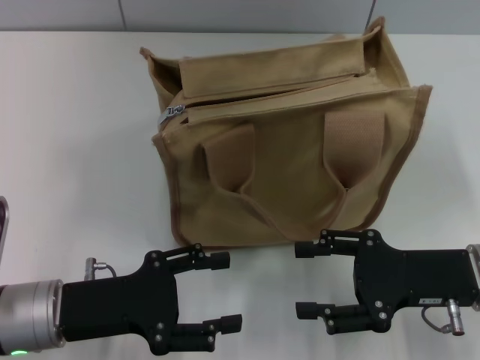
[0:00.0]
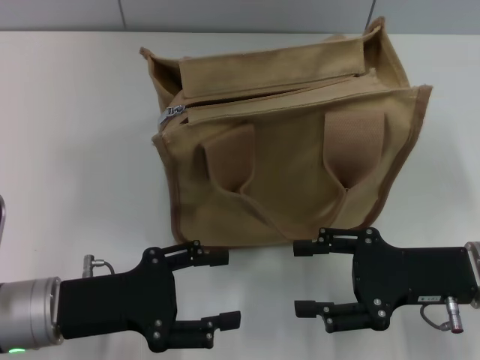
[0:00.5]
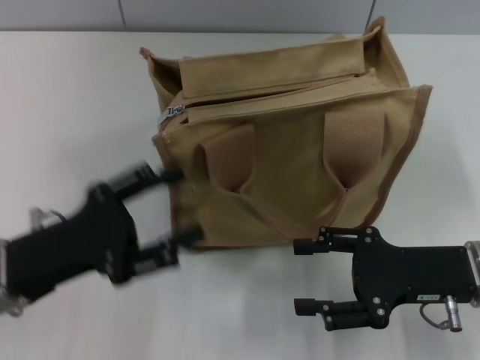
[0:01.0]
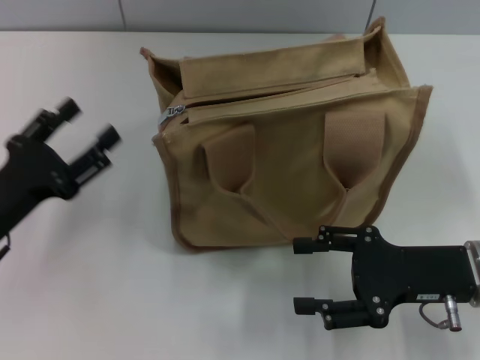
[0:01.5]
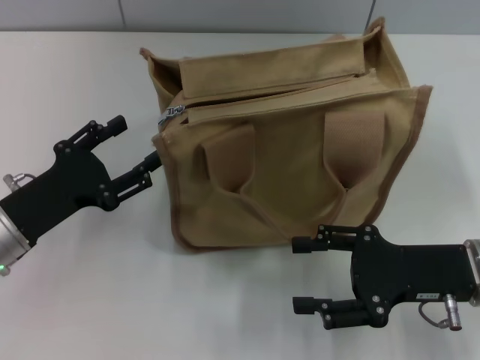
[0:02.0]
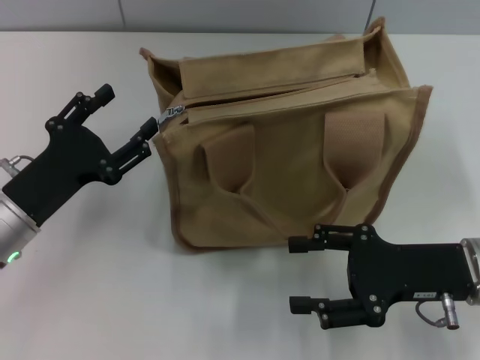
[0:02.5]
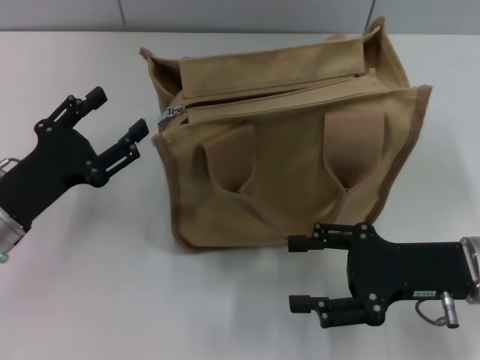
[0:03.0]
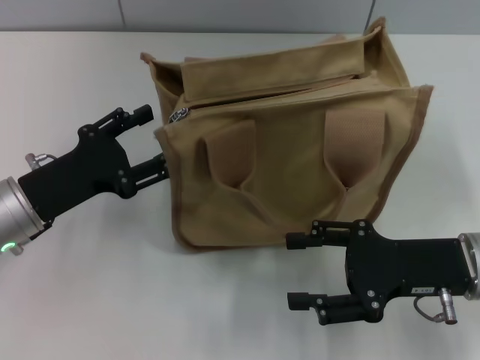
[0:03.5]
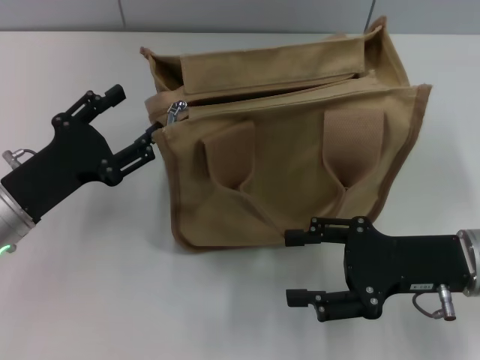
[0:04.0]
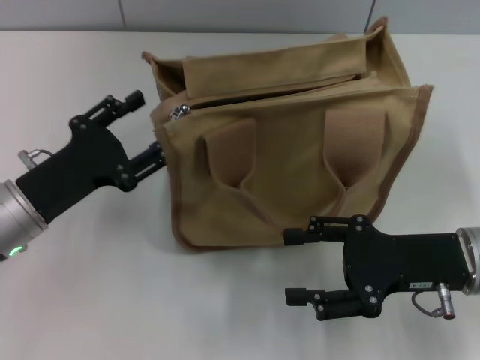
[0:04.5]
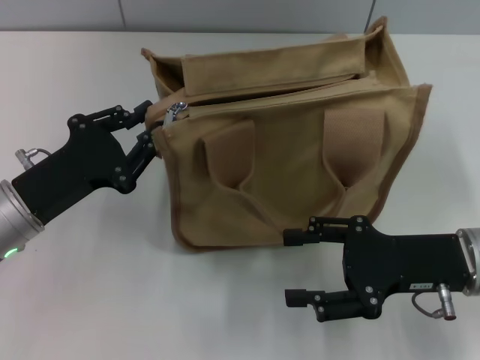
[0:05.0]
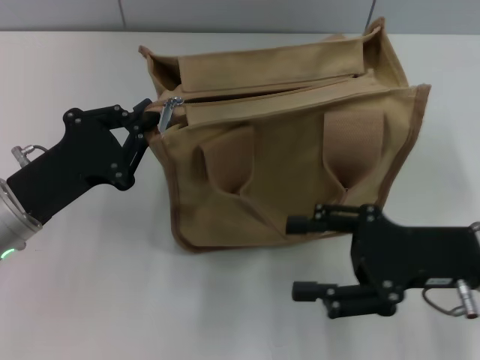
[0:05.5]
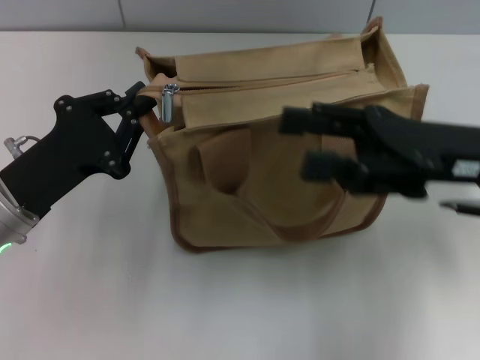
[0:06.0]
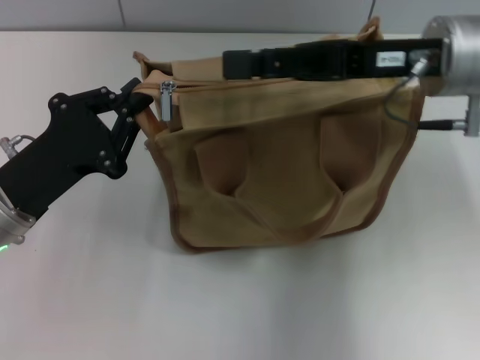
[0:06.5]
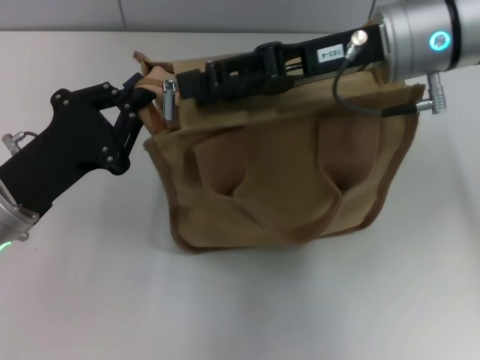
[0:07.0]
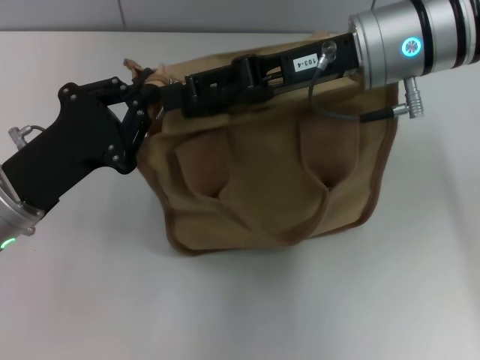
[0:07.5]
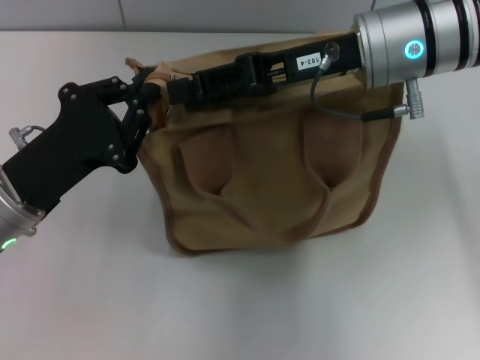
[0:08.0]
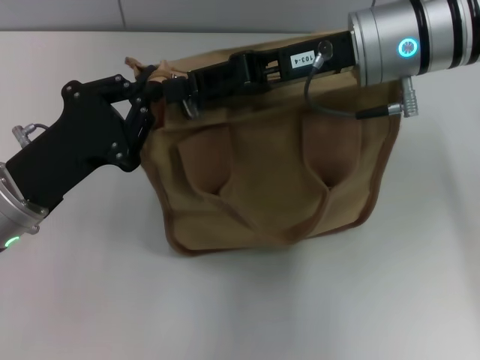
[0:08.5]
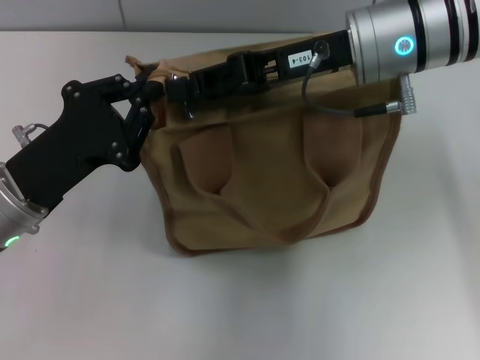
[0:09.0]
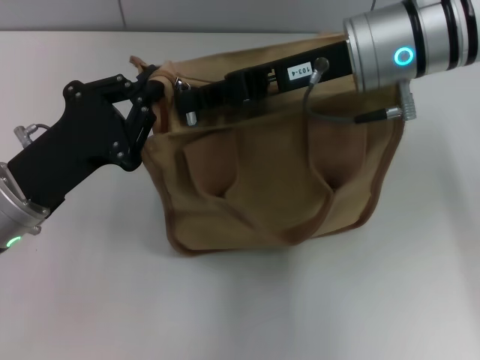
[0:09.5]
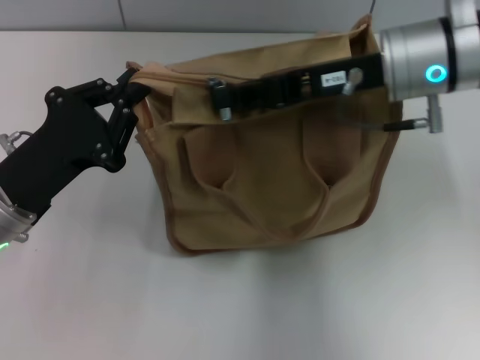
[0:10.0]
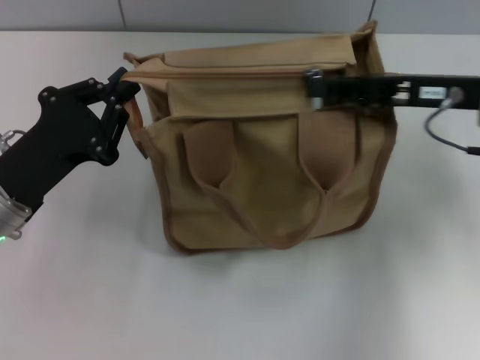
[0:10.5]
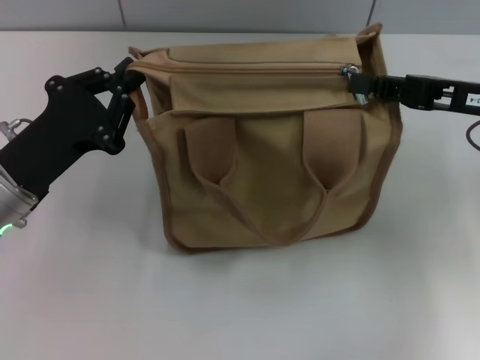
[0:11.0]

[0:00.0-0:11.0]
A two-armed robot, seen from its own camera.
0:00.0 to 0:02.0: The left gripper moves roughly 5 cm.
0:02.0 to 0:03.5: There are only small adjustments of the grippers.
0:03.5 to 0:05.5: The left gripper closes up.
0:05.5 to 0:07.5: The right gripper shifts approximately 20 cm forward, upward and to the left.
0:07.5 to 0:09.0: The right gripper closes up.
0:09.0 to 0:11.0: The right gripper heads to the right, covering roughly 15 cm, and closes its fingers.

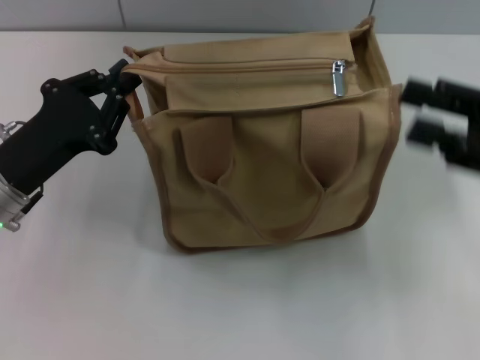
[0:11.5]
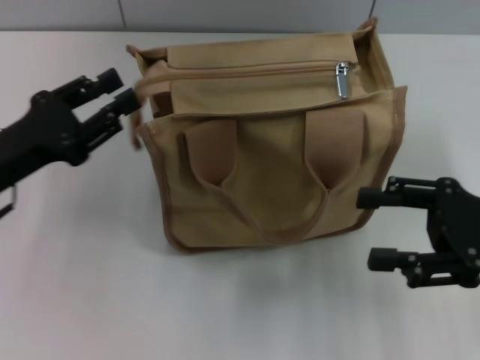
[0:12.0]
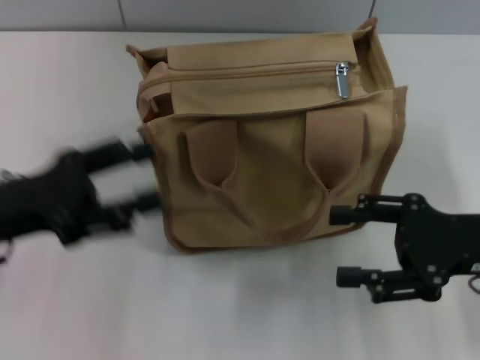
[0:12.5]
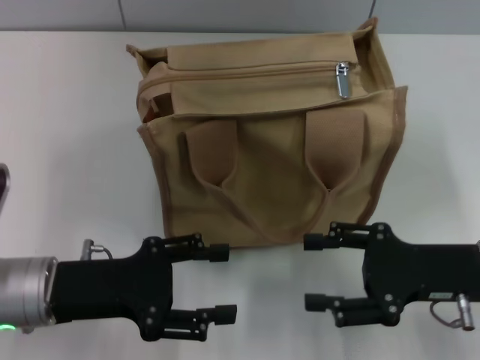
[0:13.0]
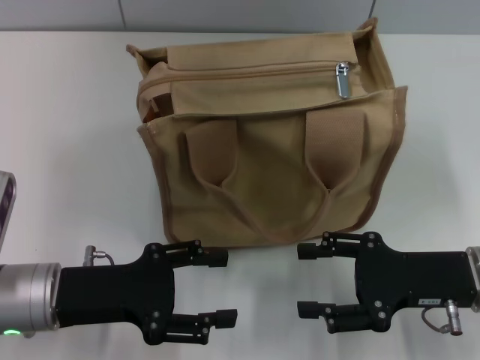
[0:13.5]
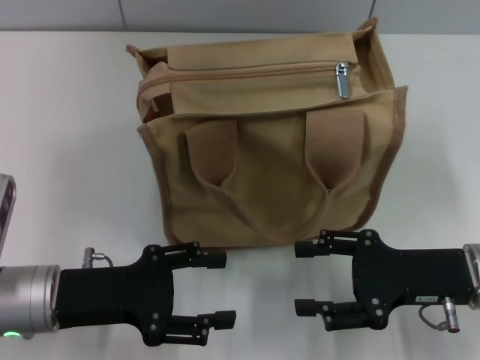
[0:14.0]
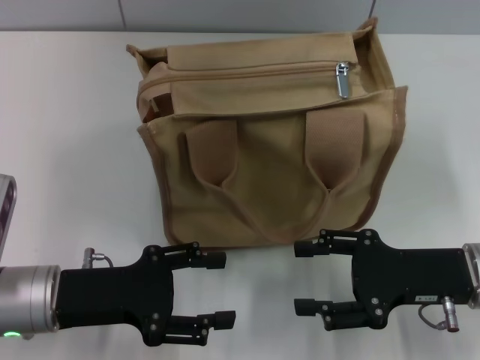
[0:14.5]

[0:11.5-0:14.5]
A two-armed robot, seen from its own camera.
Step, 0:11.5 to 0:12.0: Grab the zipper with your left hand.
0:11.5 to 0:13.0: The right gripper is displaced downward and to the left by about 10 cm, and opens up. Meanwhile the left gripper moves approximately 5 cm, and opens its fingers.
0:13.0 to 0:14.5: Both grippers stay about where they are.

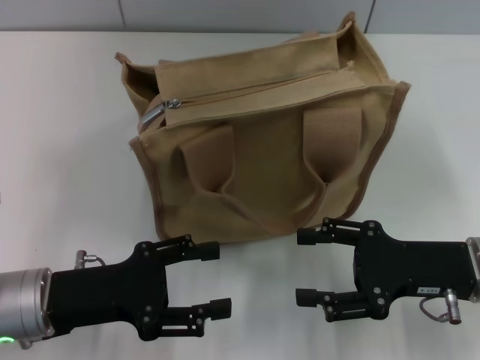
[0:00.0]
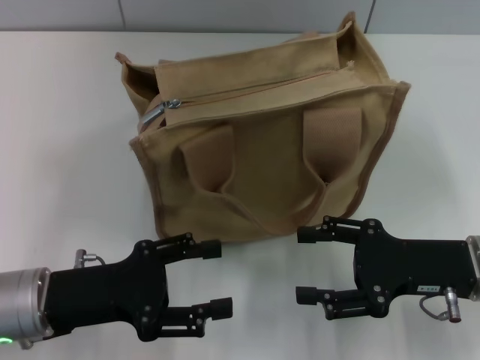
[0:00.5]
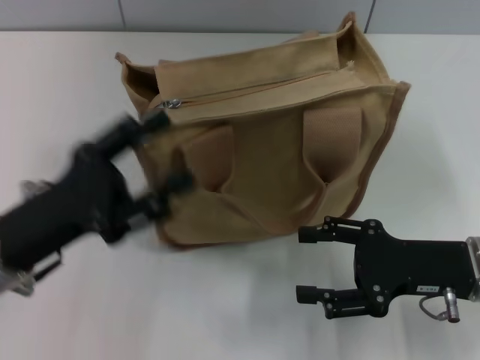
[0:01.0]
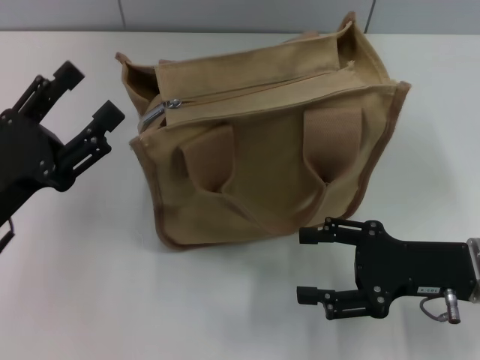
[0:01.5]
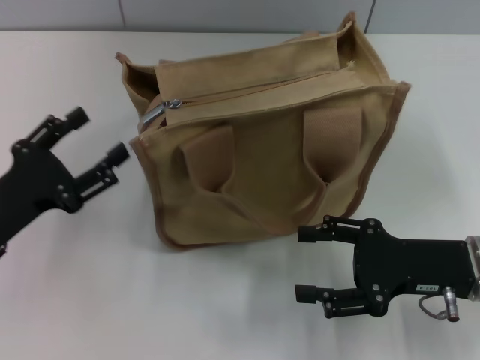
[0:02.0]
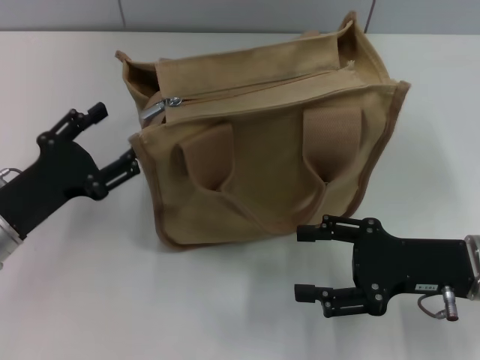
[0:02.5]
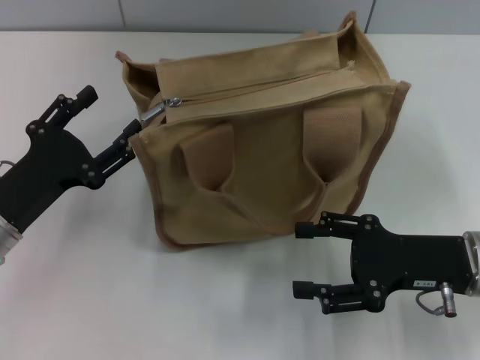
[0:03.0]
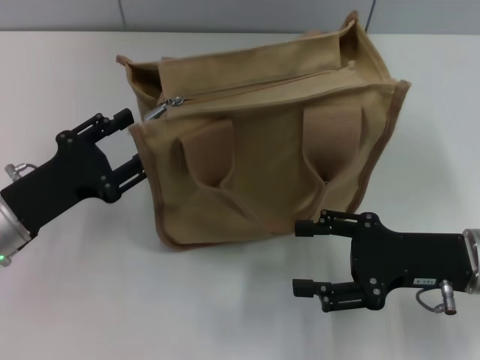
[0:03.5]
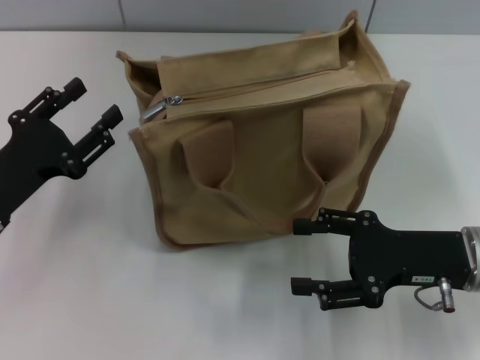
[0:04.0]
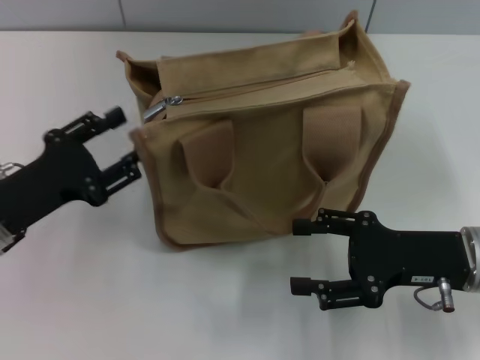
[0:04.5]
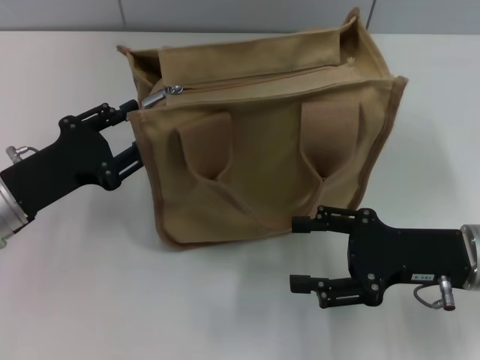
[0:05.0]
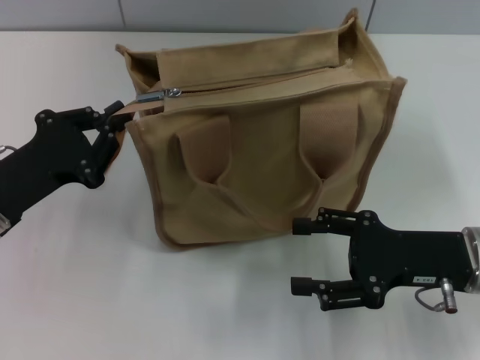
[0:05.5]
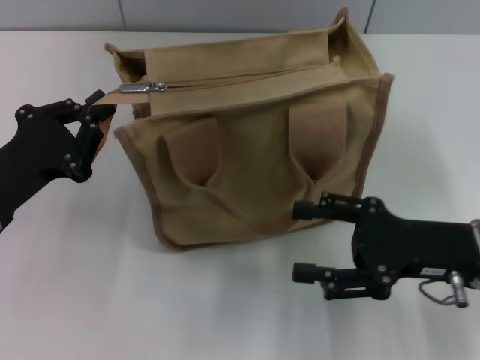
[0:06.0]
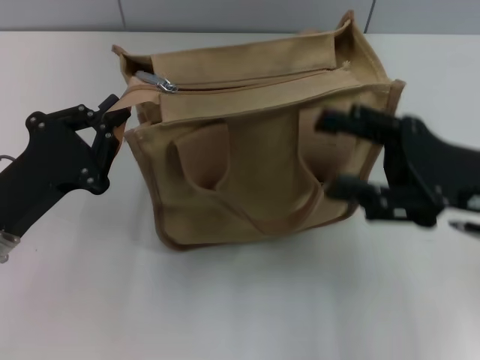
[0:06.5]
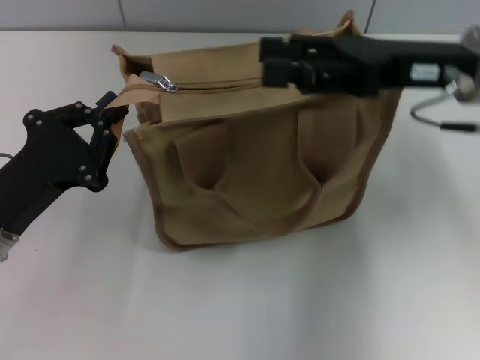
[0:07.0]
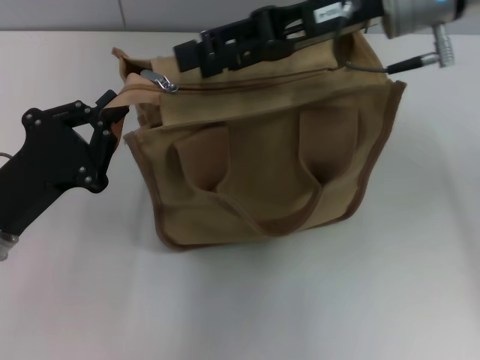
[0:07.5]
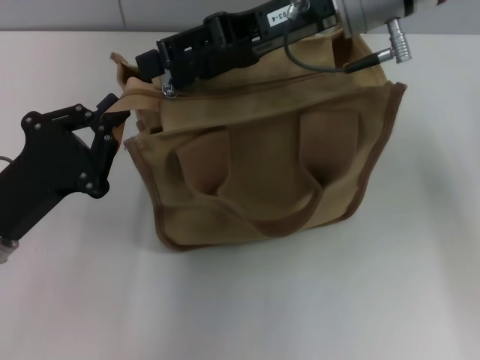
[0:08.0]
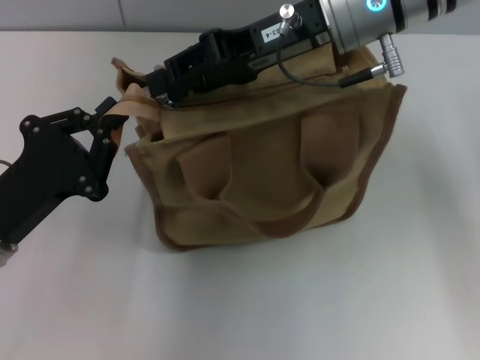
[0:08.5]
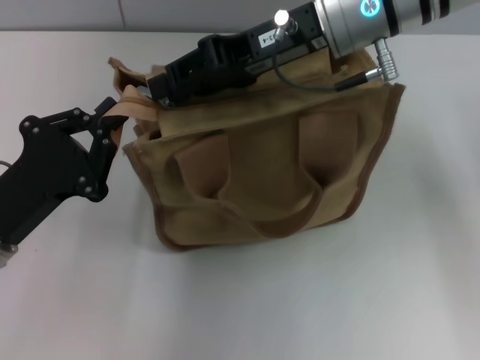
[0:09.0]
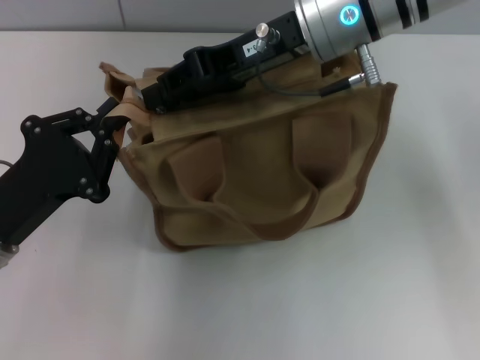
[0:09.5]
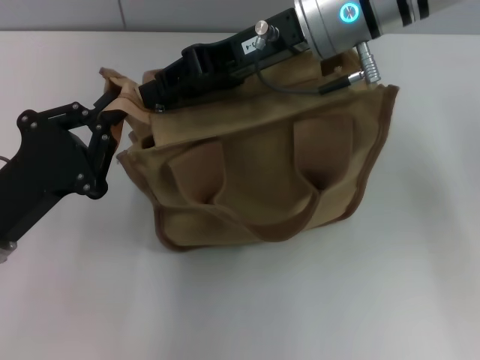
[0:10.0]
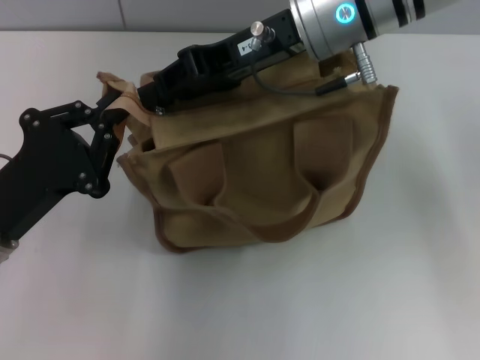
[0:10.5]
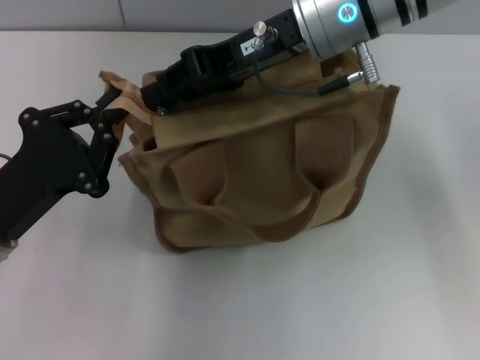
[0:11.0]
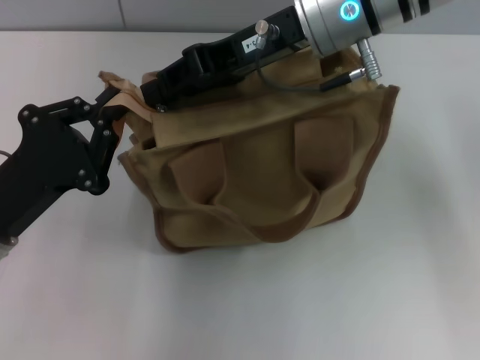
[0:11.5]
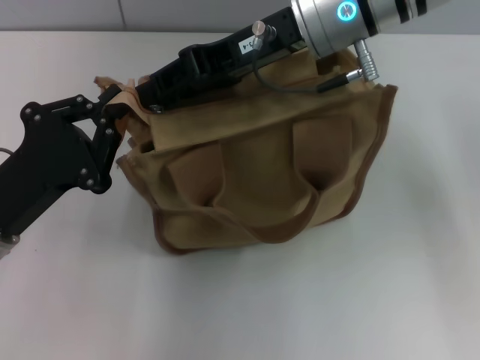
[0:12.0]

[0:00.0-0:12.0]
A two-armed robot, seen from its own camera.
0:00.0 to 0:02.0: The left gripper shifts some 5 cm to the left.
0:02.0 to 0:04.0: The grippers move only a little.
0:04.0 to 0:06.0: The left gripper closes up.
0:06.0 to 0:08.0: The right gripper heads upward, forward and to the left, covering approximately 25 cm.
0:08.0 to 0:10.0: The right gripper closes its fingers.
0:10.0 to 0:12.0: Both grippers stay about where they are.
